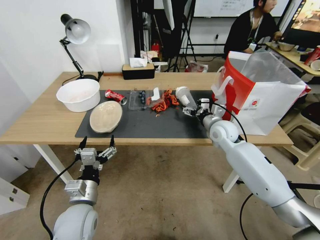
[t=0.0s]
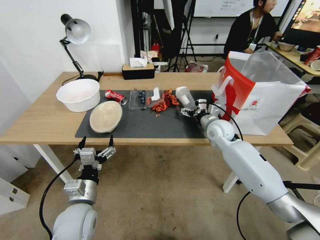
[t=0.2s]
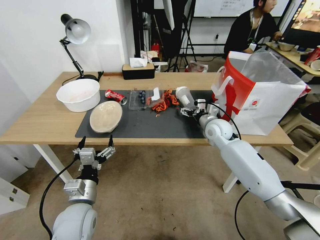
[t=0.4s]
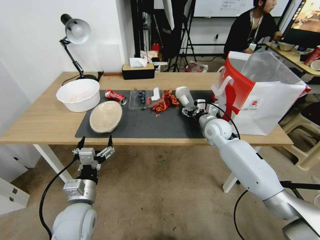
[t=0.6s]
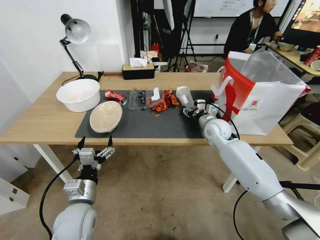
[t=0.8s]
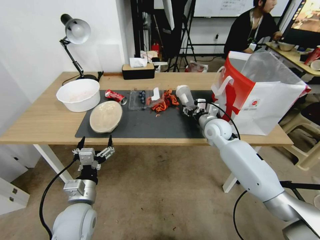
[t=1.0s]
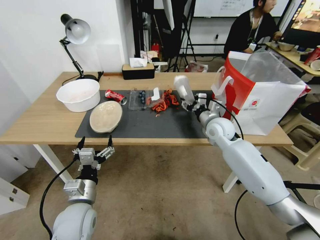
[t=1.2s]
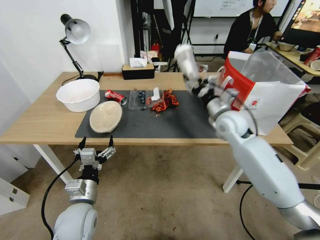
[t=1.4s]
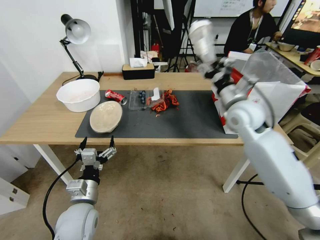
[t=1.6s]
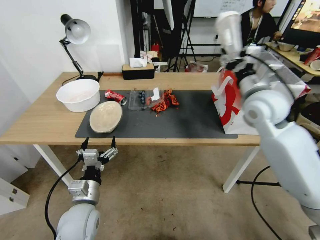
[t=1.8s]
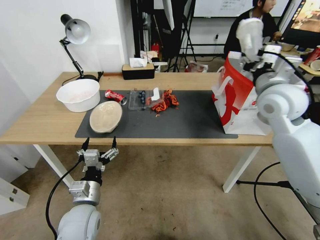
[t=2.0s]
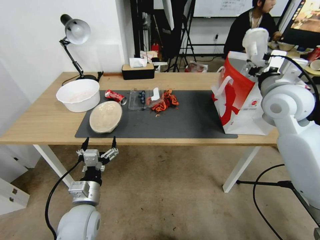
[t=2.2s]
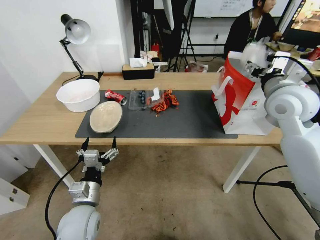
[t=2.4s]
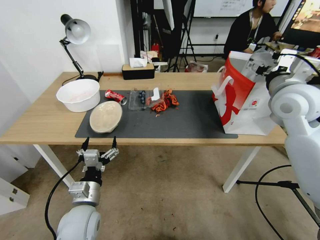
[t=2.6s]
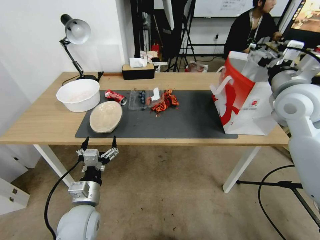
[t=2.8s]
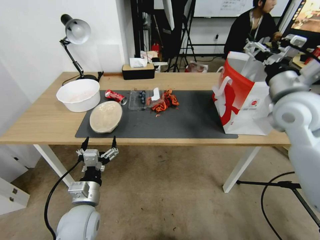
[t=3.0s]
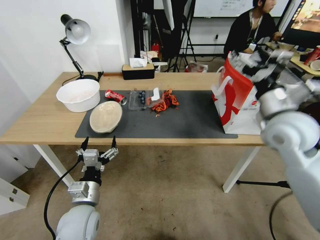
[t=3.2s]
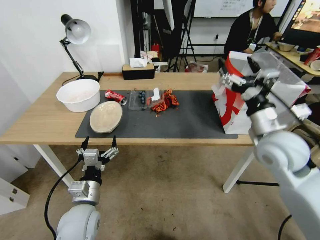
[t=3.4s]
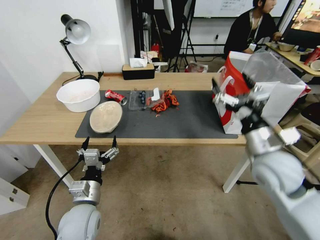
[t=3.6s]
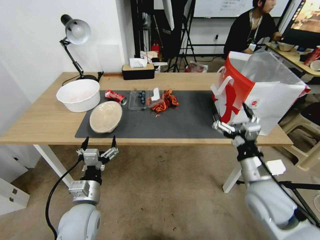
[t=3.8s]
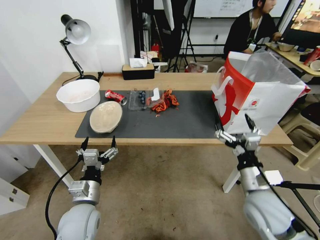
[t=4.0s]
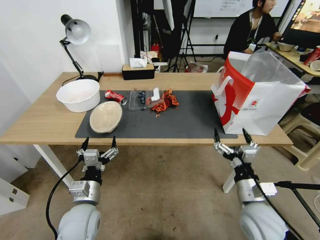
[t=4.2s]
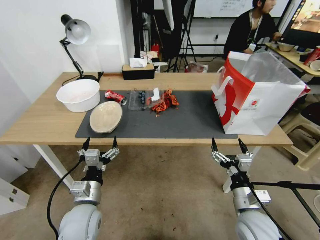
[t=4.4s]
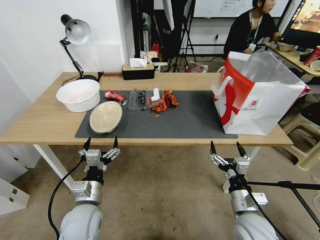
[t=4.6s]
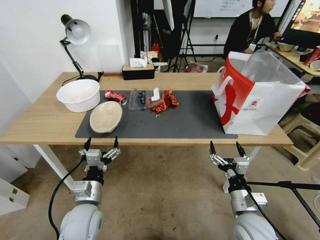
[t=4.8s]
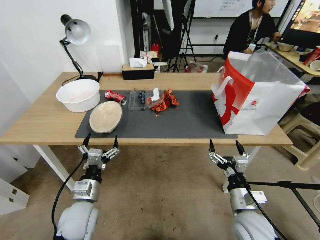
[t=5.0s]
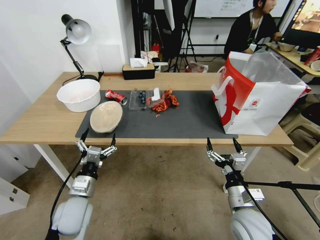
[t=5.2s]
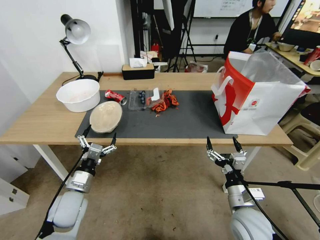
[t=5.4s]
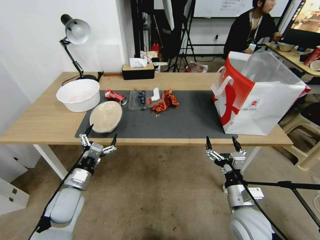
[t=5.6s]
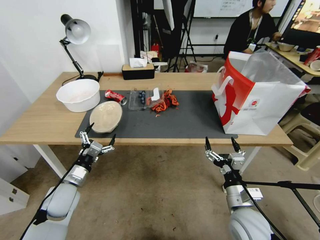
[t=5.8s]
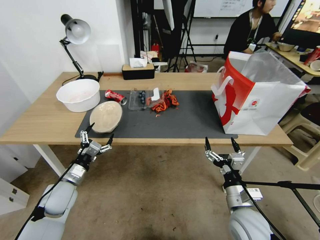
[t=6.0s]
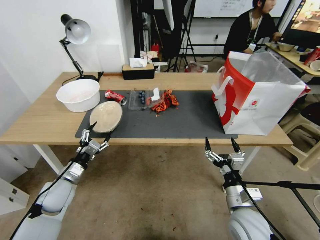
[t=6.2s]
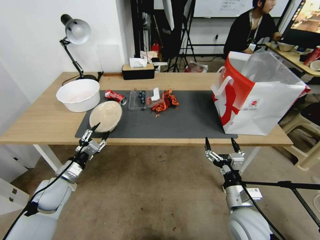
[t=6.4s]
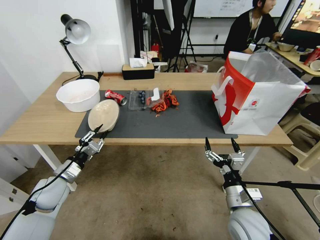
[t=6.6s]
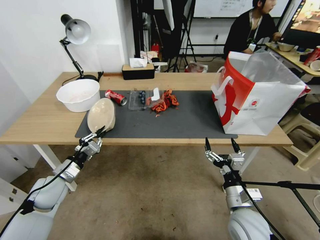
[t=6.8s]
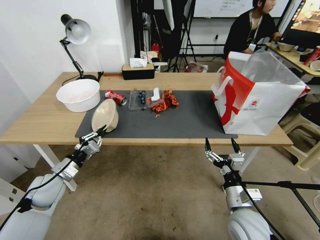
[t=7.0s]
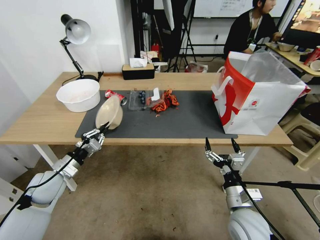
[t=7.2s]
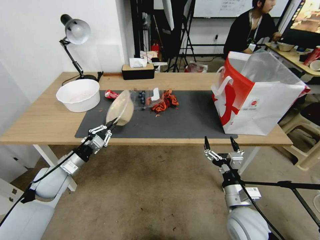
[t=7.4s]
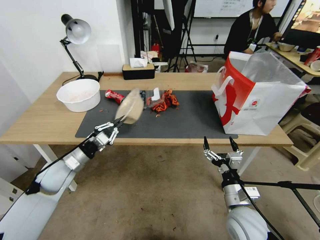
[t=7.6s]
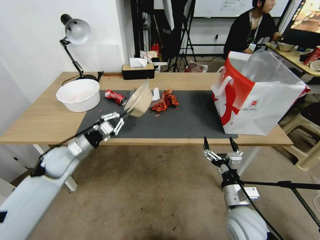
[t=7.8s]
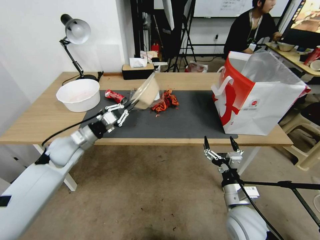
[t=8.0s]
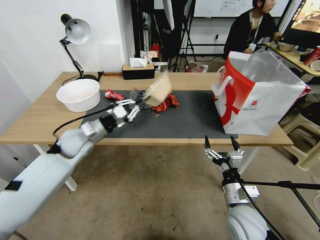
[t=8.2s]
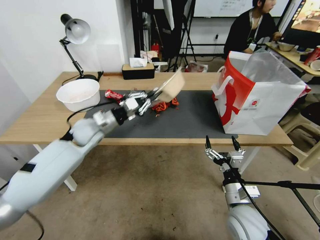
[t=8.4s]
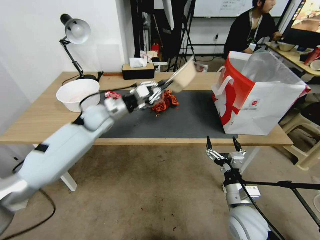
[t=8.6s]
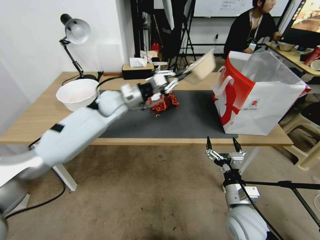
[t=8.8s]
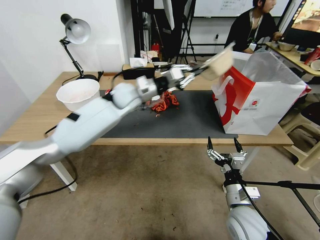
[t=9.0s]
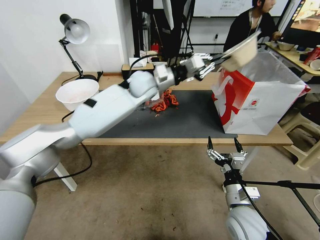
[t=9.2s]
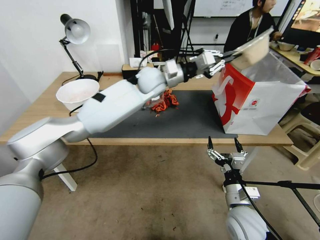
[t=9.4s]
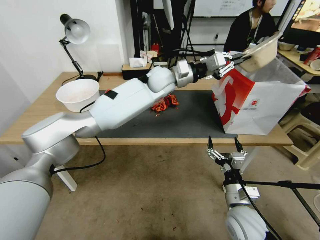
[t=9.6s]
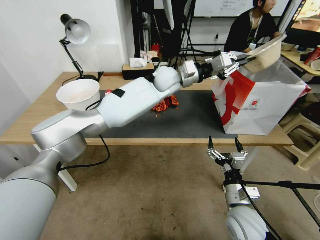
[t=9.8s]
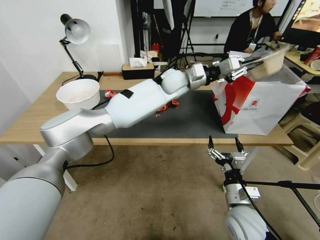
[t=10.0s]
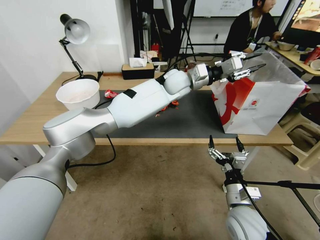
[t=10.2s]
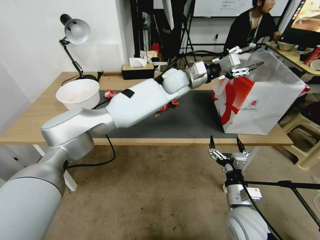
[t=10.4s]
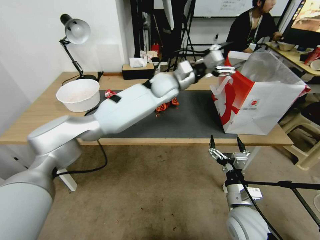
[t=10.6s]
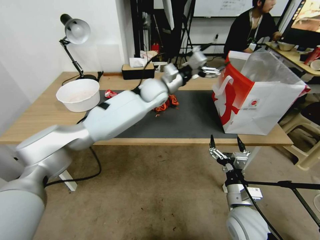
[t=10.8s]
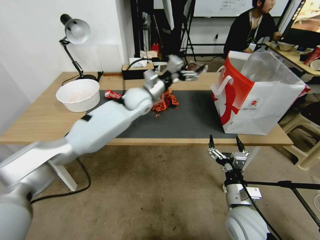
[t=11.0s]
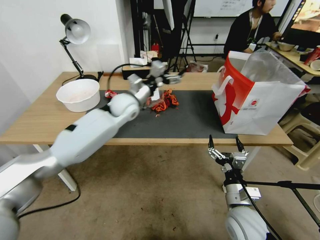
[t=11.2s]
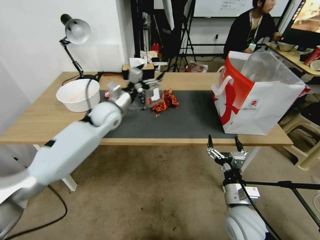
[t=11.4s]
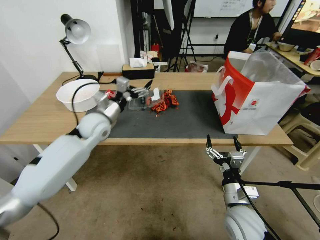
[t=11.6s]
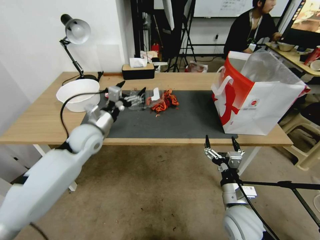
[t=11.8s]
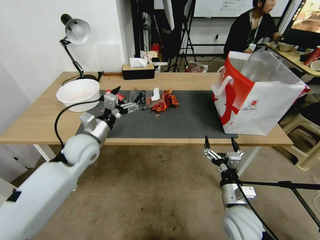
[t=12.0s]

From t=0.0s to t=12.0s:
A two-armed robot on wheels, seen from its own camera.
From t=0.0s to t=1.6s: The right gripper is displaced upward by about 15 cm, and closes.
From t=1.6s to t=3.0s: The right gripper heads to the right, upward and backward, covering approximately 10 cm, and opens its fingers.
From t=3.0s to t=4.4s: The right gripper heads downward and backward, covering roughly 35 cm.
From t=4.4s to t=6.0s: The left gripper shifts some 15 cm to the left and forward.
From t=6.0s to t=7.6s: The left gripper shifts approximately 10 cm forward and upward, and closes.
From t=7.6s to t=9.0s: The left gripper travels to the right, forward and upward by about 35 cm.
From t=9.0s to t=10.4s: The left gripper goes about 15 cm to the right, and opens.
From t=10.4s to t=12.0s: The left gripper shifts some 35 cm to the left, backward and downward, and opens its fingers.

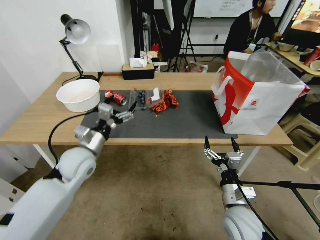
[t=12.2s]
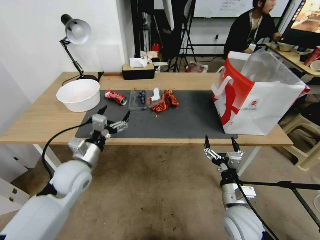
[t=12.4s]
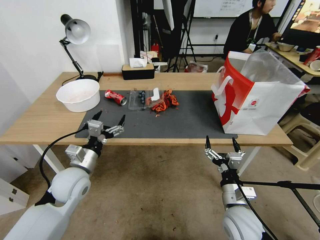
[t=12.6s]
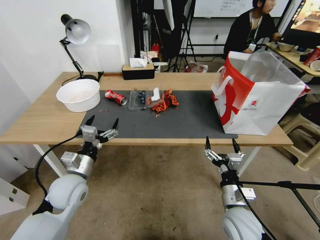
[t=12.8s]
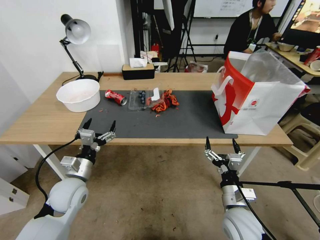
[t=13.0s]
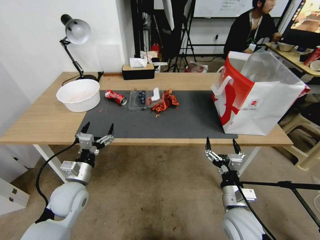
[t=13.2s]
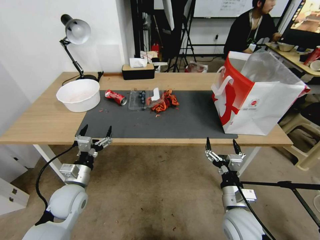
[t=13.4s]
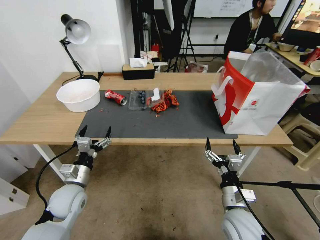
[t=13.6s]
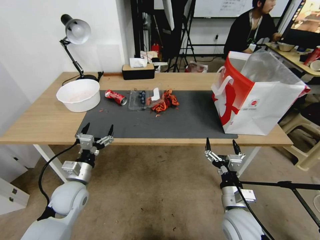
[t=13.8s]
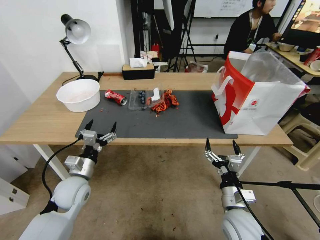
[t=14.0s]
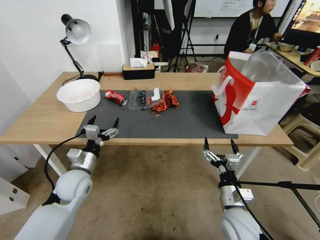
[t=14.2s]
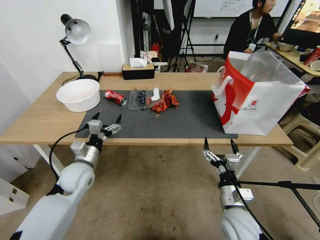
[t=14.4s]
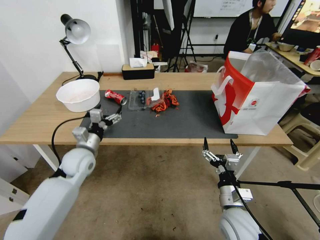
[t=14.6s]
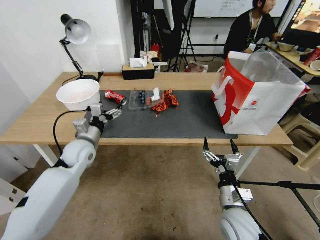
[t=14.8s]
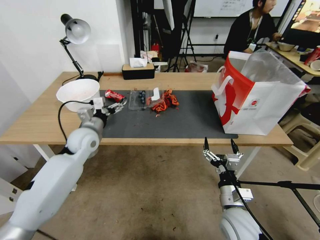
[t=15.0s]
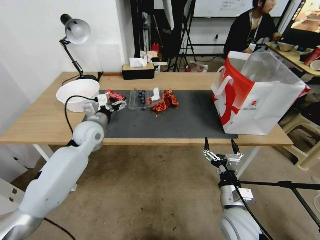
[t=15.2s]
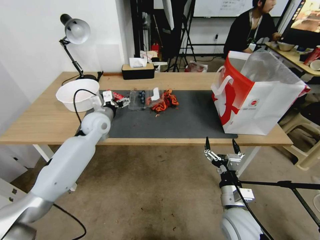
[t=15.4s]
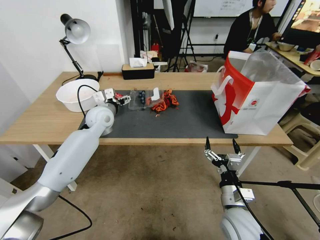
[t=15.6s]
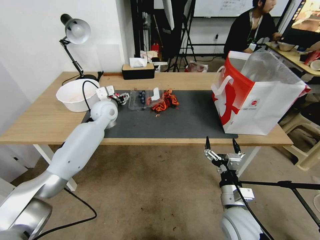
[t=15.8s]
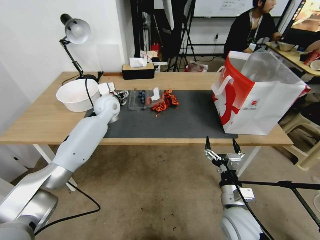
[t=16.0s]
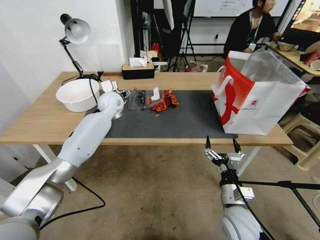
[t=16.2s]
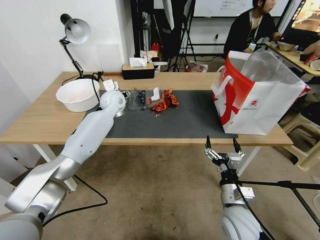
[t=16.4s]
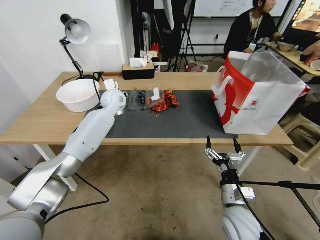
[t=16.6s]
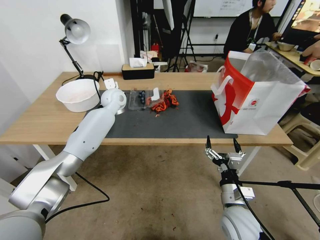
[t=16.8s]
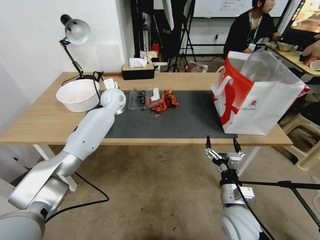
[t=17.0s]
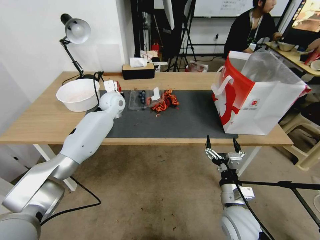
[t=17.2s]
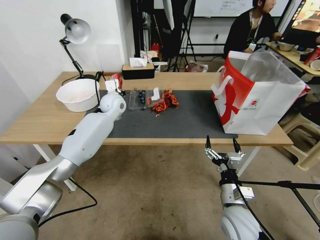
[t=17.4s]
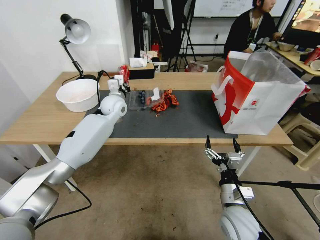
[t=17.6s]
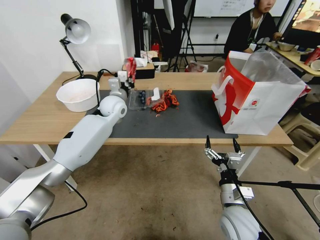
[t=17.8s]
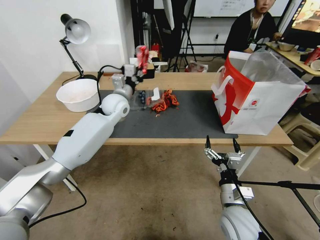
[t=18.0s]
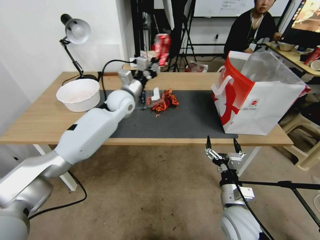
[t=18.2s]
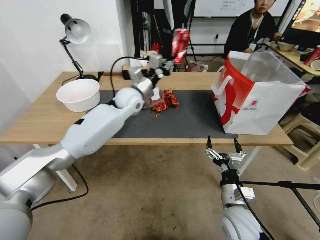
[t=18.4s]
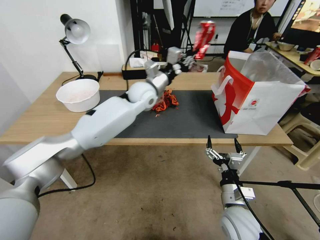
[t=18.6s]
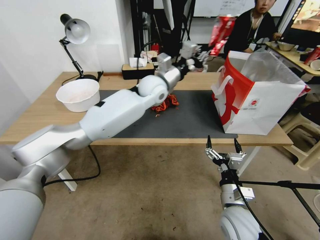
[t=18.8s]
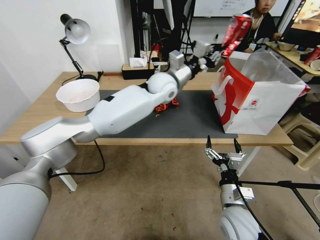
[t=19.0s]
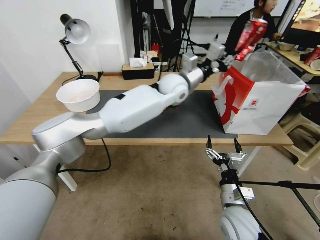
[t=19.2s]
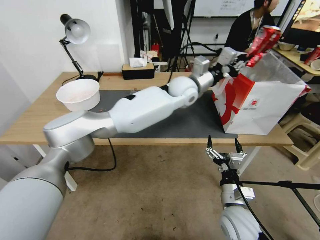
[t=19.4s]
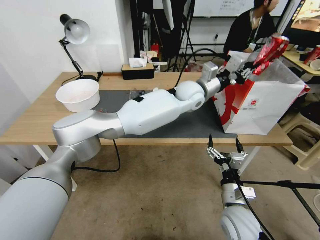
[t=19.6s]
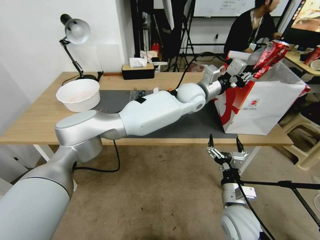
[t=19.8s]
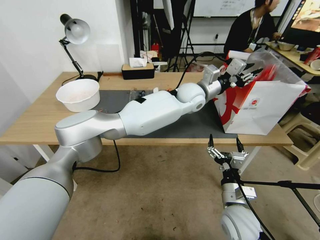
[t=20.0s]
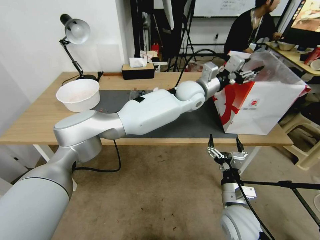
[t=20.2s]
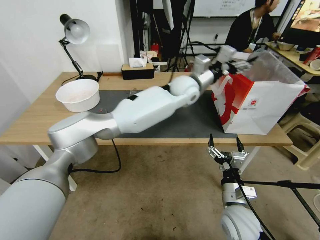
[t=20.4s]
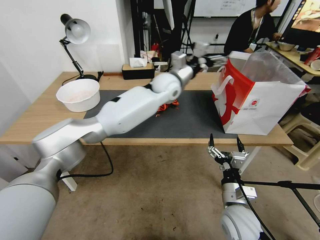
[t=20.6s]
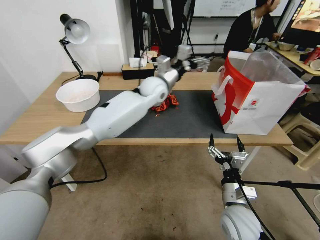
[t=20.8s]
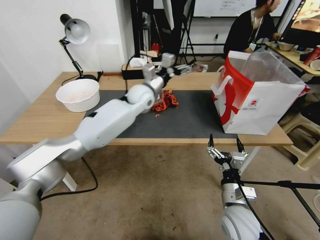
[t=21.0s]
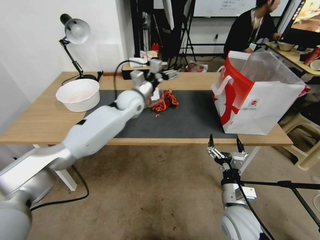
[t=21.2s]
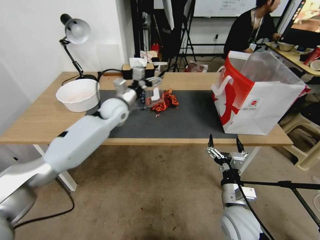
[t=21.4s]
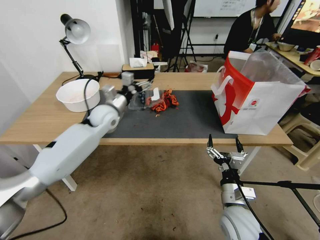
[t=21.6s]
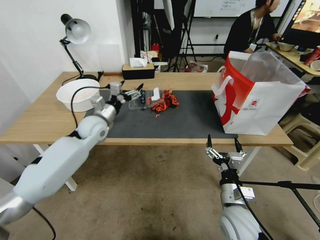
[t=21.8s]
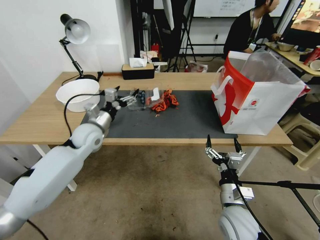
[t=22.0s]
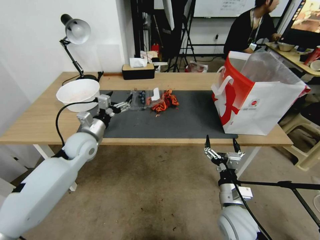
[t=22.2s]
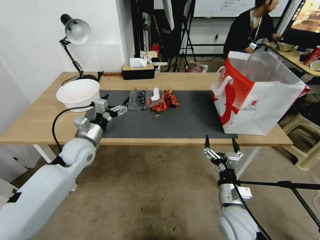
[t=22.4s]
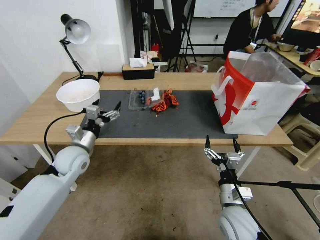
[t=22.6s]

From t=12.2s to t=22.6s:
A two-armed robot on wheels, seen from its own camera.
From t=12.2s to t=13.6s: The left gripper is displaced downward and backward by roughly 15 cm.
From t=13.6s to t=15.2s: The left gripper shifts approximately 20 cm forward and upward.
From t=15.2s to t=16.6s: The left gripper travels forward and to the right by approximately 15 cm, and closes its fingers.
From t=16.6s to t=18.2s: The left gripper changes place by some 5 cm, and closes its fingers.
From t=18.2s to t=19.6s: The left gripper goes some 25 cm to the right.
From t=19.6s to t=21.2s: The left gripper heads to the left, covering approximately 20 cm, and opens.
From t=21.2s to t=22.6s: The left gripper shifts roughly 25 cm backward, to the left and downward.
